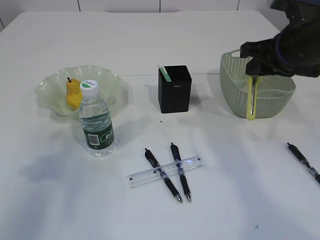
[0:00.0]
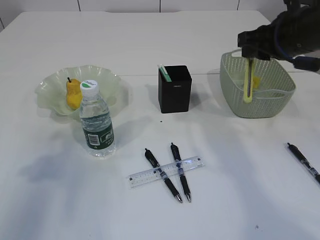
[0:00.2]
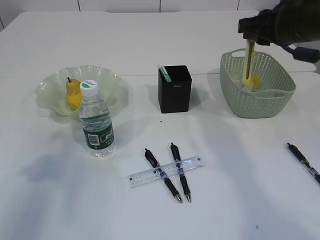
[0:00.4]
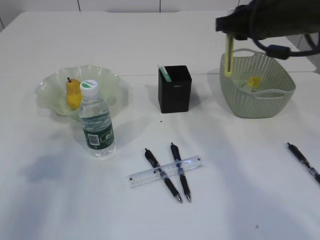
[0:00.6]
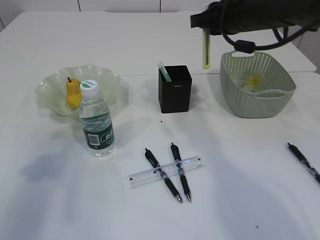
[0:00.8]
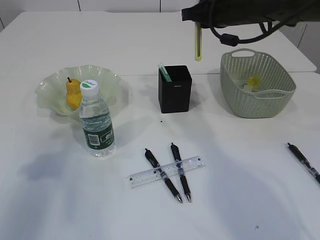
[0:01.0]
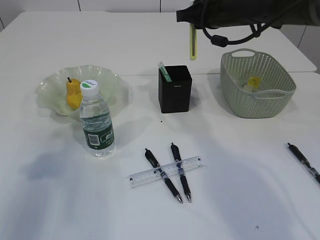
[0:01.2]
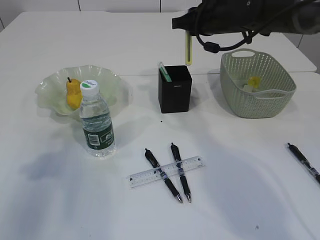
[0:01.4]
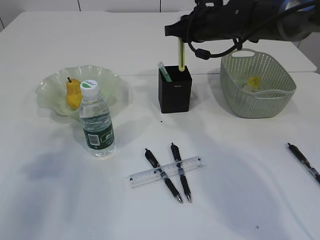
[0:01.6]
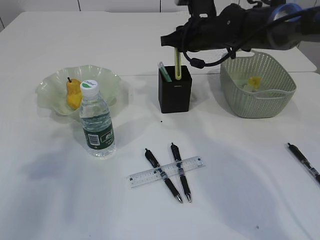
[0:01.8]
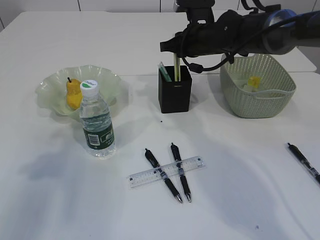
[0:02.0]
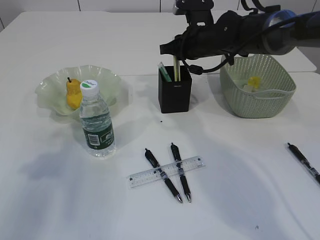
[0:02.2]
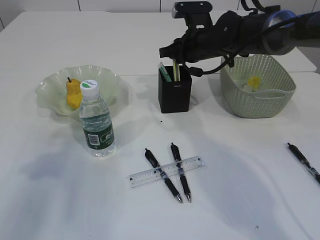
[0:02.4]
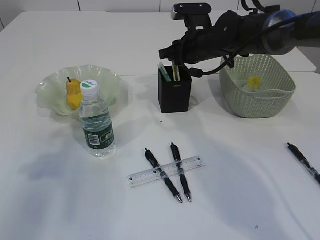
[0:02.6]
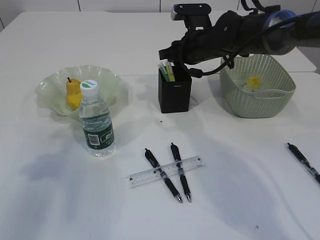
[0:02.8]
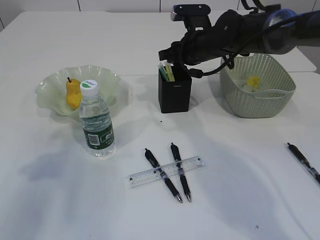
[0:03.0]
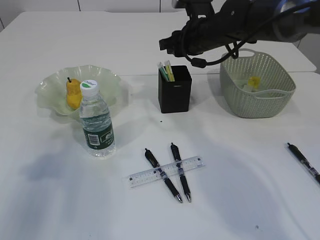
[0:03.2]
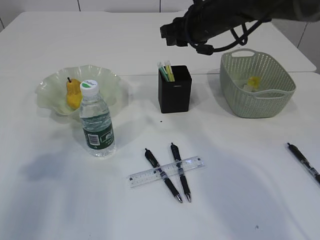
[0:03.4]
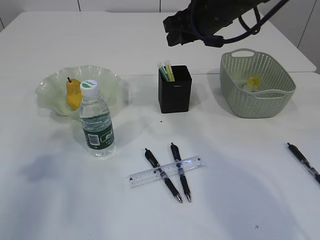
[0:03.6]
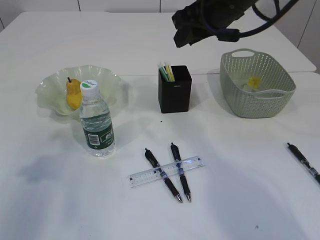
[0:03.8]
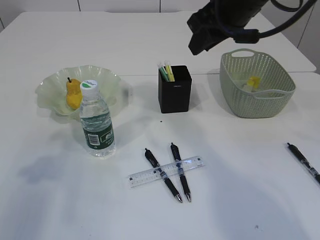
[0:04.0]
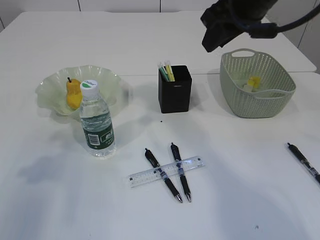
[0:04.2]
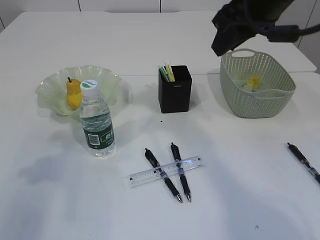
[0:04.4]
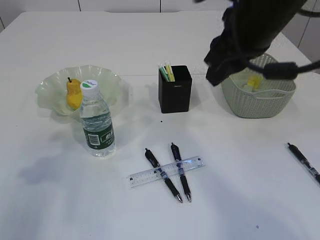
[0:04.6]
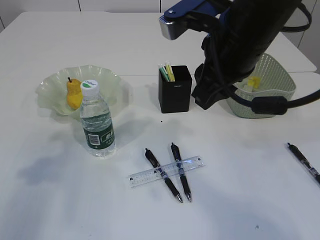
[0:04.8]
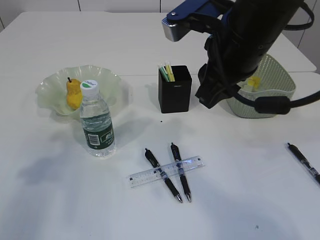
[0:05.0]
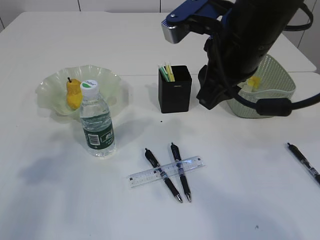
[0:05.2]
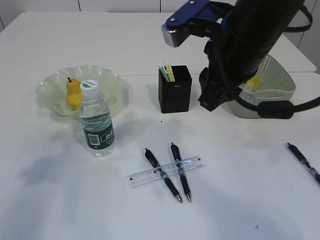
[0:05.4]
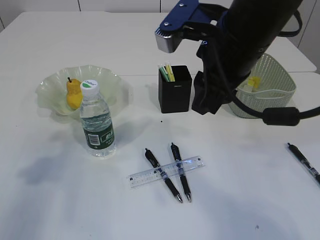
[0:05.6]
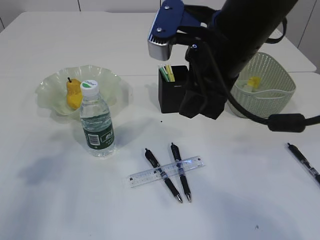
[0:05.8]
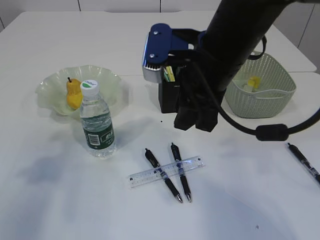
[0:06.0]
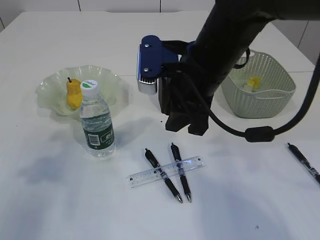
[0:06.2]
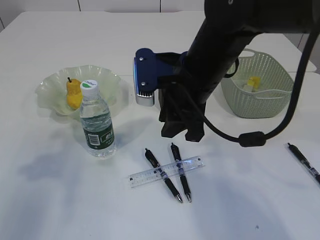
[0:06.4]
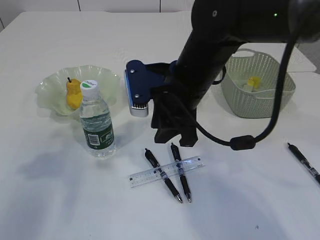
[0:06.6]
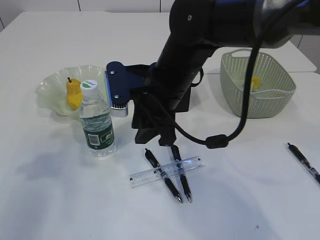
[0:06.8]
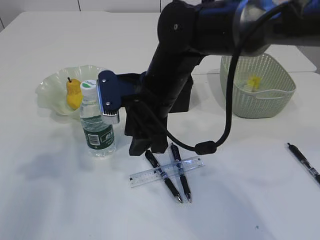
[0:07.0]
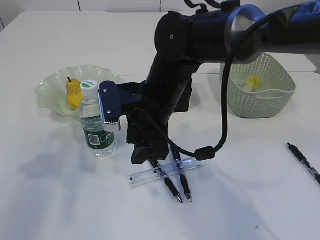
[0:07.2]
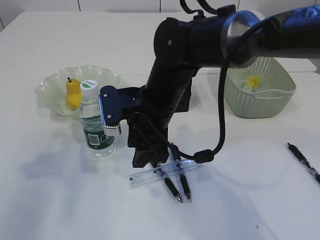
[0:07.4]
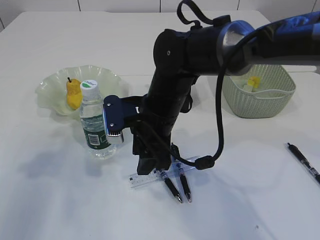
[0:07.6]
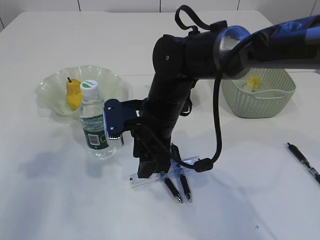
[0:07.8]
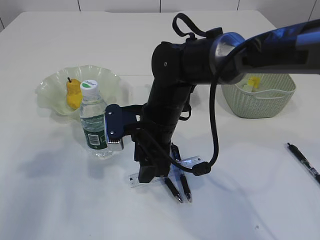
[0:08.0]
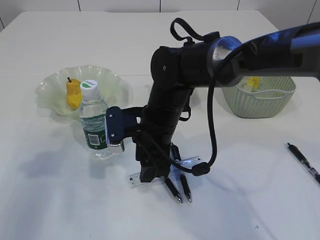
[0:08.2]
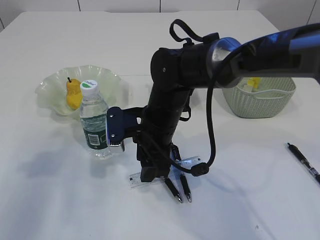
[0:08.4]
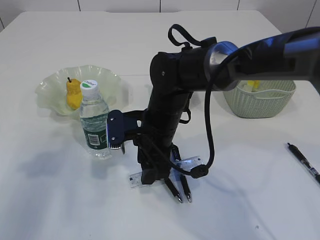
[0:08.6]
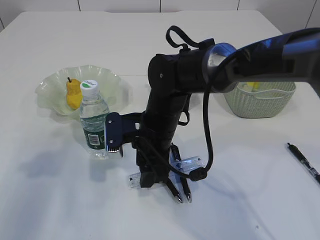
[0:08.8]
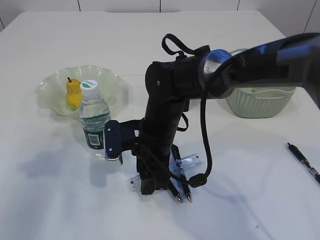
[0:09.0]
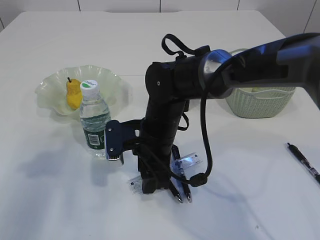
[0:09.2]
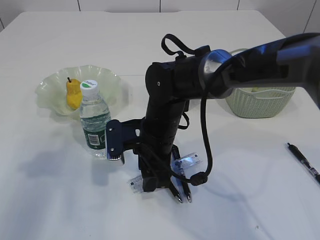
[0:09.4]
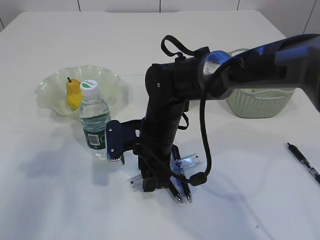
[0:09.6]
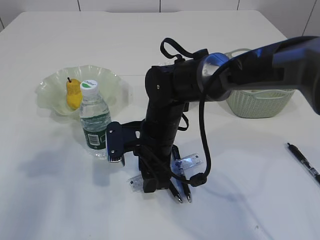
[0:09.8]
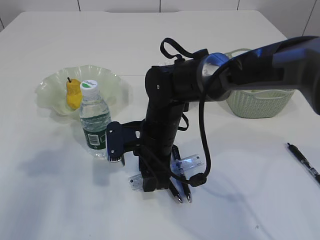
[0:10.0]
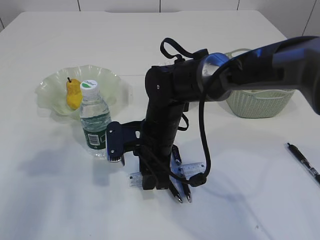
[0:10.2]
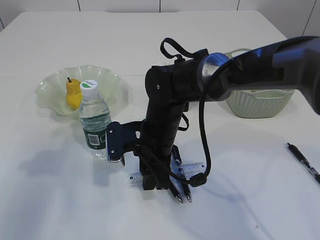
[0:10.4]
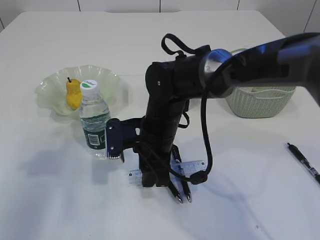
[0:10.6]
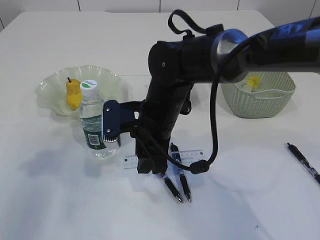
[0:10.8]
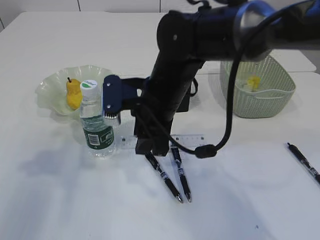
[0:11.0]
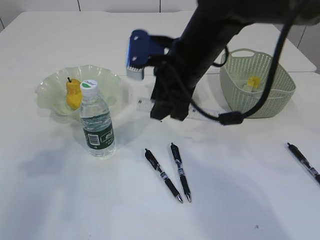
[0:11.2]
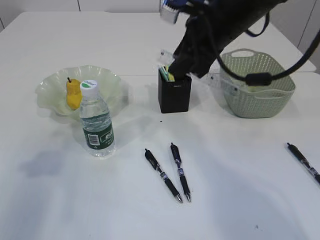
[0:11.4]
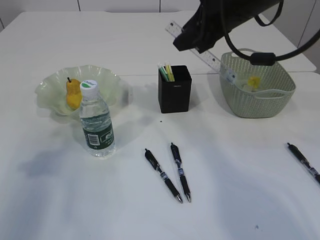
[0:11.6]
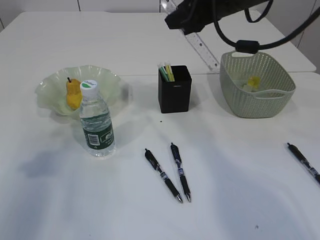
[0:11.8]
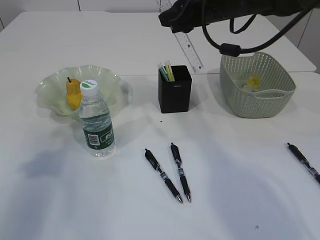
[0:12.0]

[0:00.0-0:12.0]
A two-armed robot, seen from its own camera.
Step, 0:00.0 to 0:03.2: place the yellow knife into the pen holder.
Step, 0:03.4 to 0:10.8: pick up the ruler.
0:00.0 to 0:01.6: The right gripper moves forward and to the left, approximately 20 cm.
0:01.6 to 0:03.0: The grippers move only a little.
0:03.0 to 0:04.4: The right gripper heads upward and backward, covering roughly 20 cm.
0:04.4 to 0:06.0: The right gripper travels to the left and downward by some 10 cm.
0:06.0 to 0:07.6: The right gripper travels downward and to the left by roughly 15 cm.
0:07.6 to 0:09.0: The grippers move only a little.
0:09.0 to 0:10.4: The two grippers keep their place.
0:10.4 to 0:12.0: The right gripper shifts roughly 25 cm upward, to the right and forward.

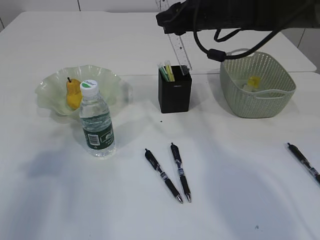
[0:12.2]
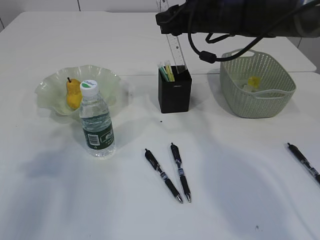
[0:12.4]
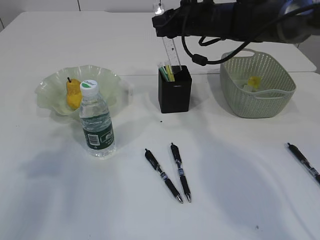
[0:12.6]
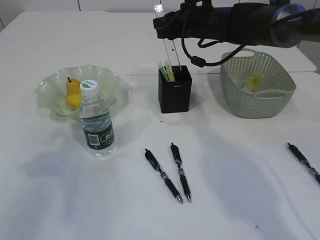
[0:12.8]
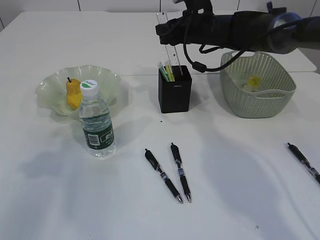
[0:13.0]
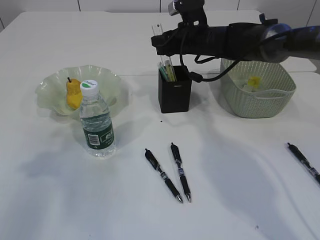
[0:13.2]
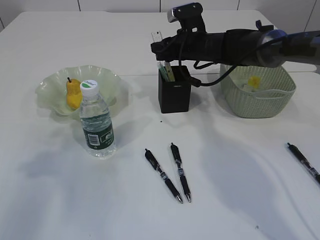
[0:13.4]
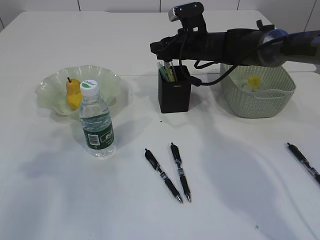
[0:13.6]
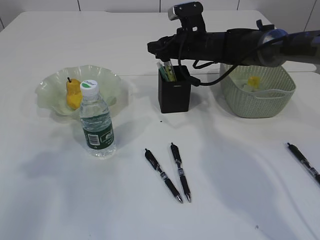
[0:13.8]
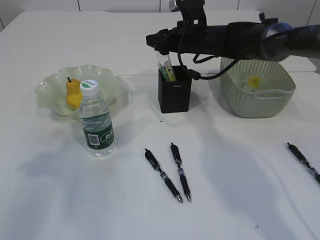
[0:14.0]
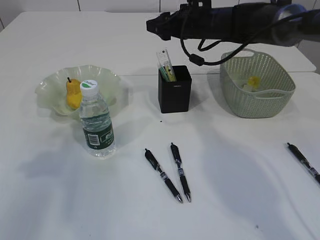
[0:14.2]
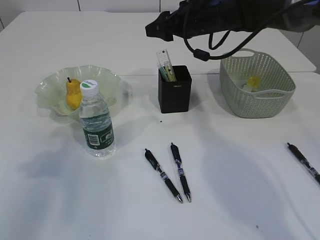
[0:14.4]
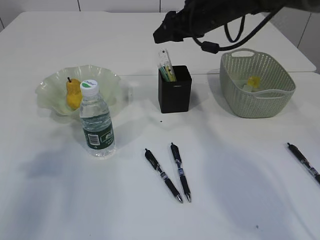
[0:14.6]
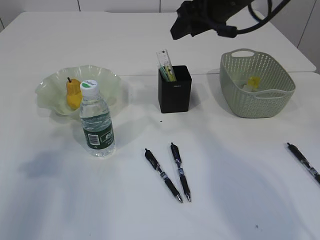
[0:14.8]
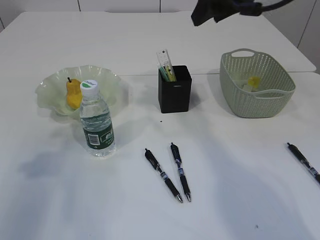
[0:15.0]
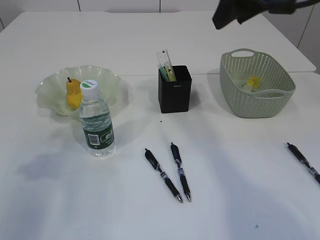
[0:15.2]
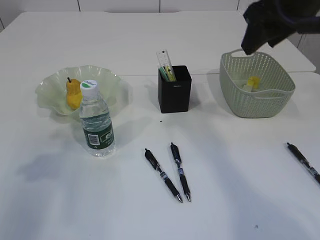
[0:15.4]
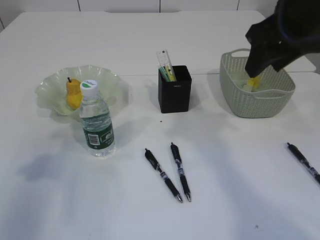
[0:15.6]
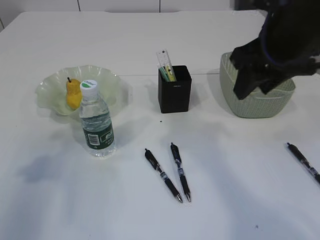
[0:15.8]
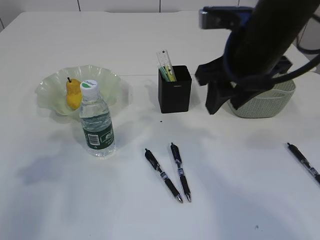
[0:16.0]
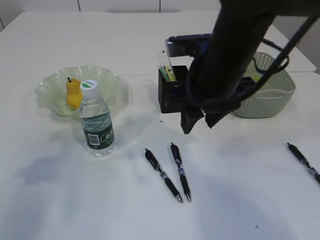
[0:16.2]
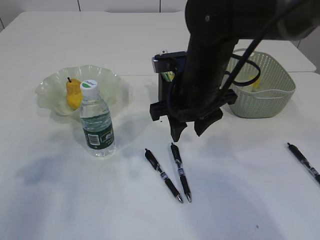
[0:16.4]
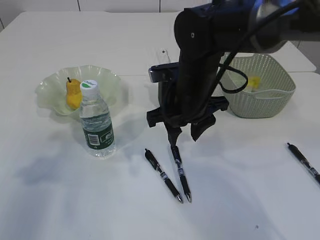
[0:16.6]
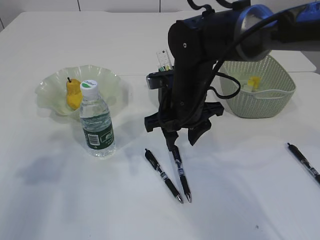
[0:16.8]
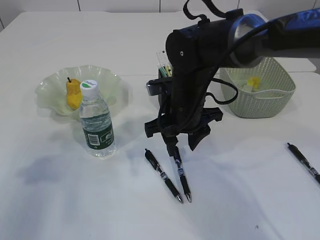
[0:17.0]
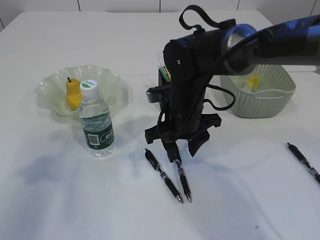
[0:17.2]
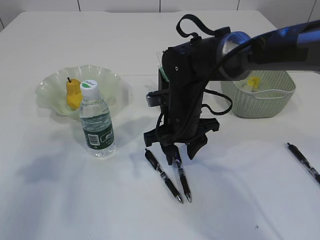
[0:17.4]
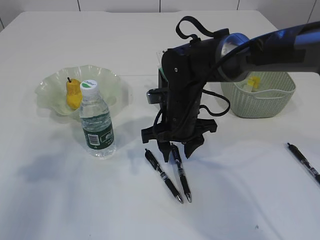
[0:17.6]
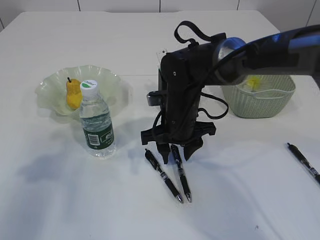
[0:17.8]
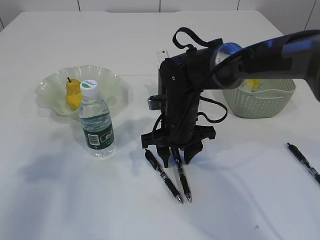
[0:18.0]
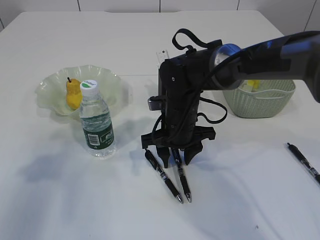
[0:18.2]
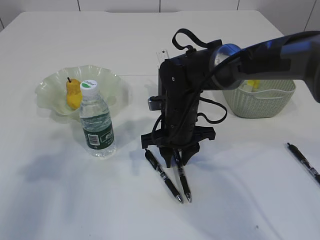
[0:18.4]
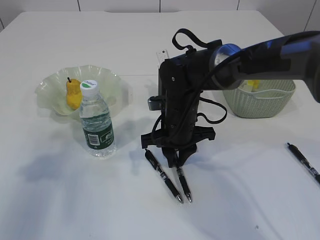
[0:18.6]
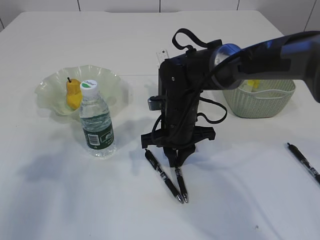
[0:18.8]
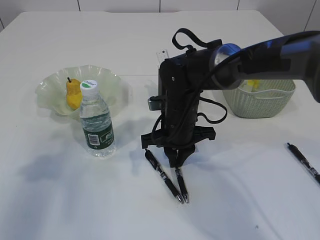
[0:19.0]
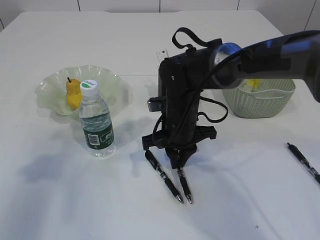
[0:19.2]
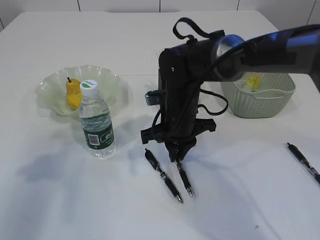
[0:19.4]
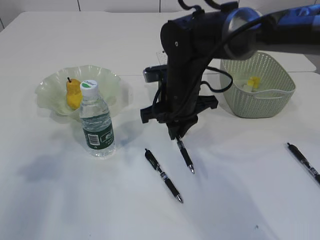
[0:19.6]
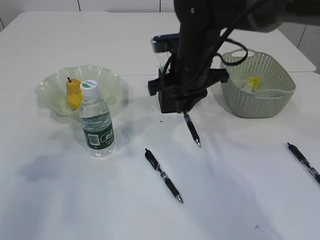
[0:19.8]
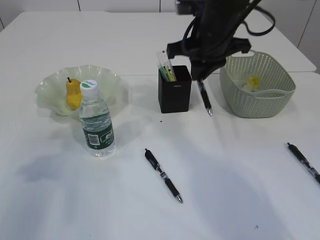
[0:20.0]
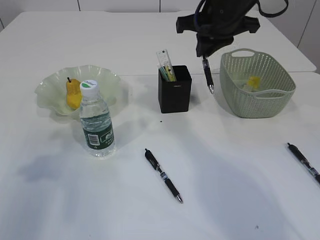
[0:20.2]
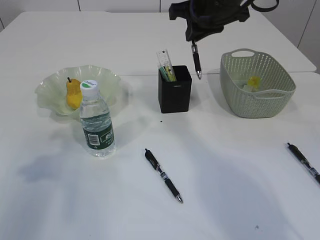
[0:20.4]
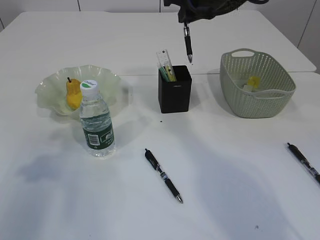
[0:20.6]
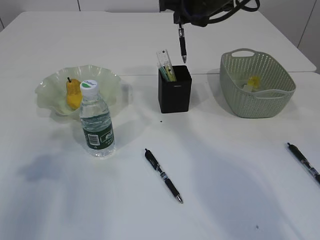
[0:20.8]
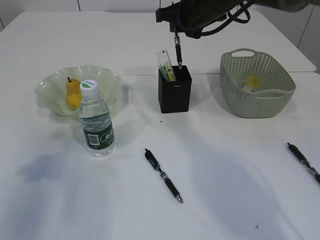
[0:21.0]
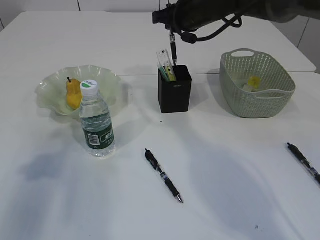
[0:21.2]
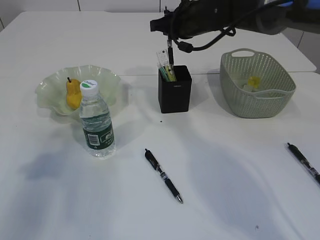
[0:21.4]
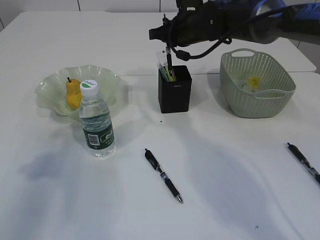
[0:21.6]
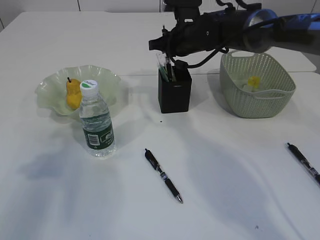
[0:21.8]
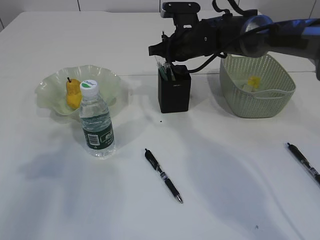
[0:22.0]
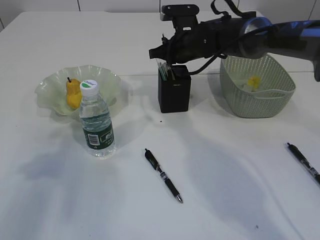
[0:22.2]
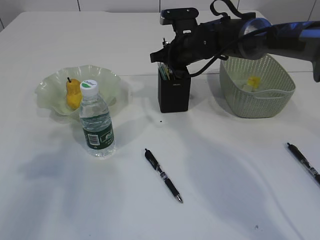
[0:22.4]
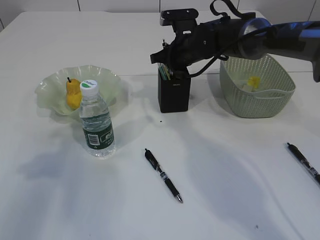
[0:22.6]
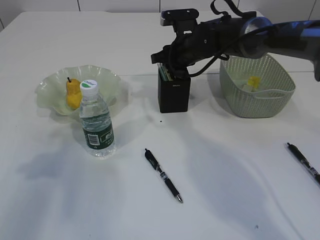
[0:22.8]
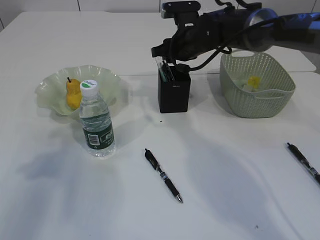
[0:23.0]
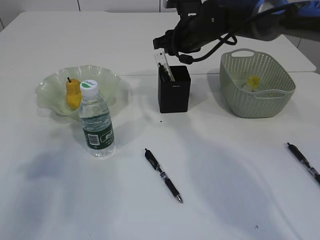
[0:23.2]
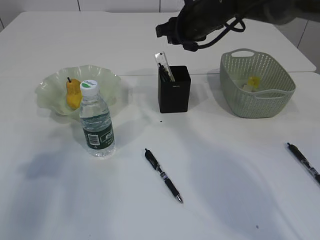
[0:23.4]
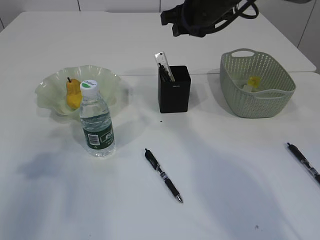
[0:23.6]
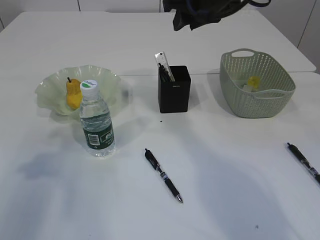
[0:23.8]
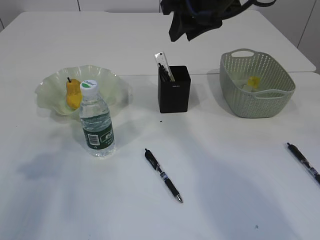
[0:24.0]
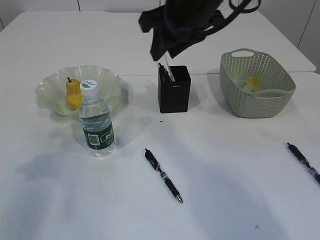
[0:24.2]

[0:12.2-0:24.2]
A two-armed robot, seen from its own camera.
Step, 0:12.2 to 0:14.2: Place the ruler into the pen holder.
Step, 0:14.4 to 0:19.4: Pick up the pen with right arm.
Step, 0:19.6 to 0:23.2: Place the pen into the pen holder.
0:12.2 to 0:13.8: The right gripper moves downward and forward, approximately 10 cm.
0:13.8 to 0:15.2: The right gripper is displaced upward and backward by approximately 25 cm.
0:15.2 to 0:16.6: The right gripper shifts roughly 20 cm downward and to the left.
0:16.6 to 0:18.2: The right gripper travels downward by approximately 10 cm.
0:18.2 to 0:19.8: The right gripper travels upward by approximately 10 cm, and closes up.
0:19.8 to 0:21.2: The right gripper moves forward, some 10 cm.
0:21.2 to 0:22.6: The right gripper heads downward, covering about 10 cm.
0:22.6 to 0:24.2: The right gripper is displaced upward and backward by some 20 cm.
